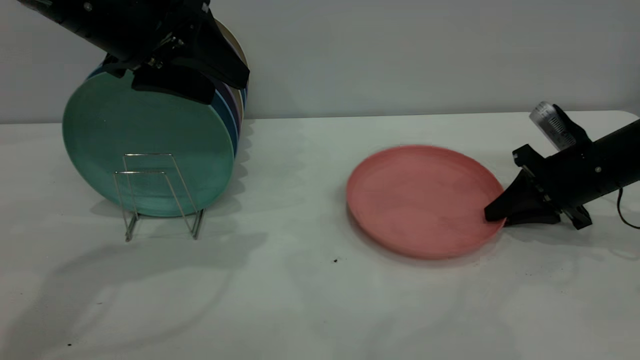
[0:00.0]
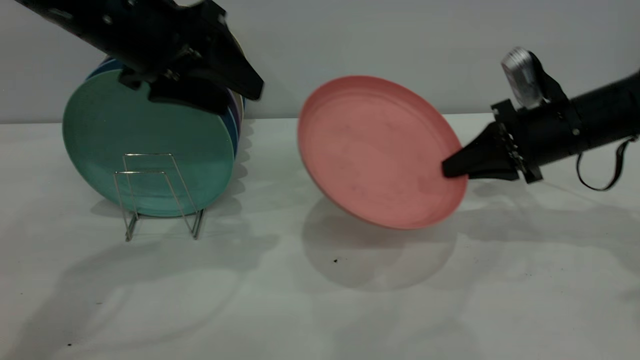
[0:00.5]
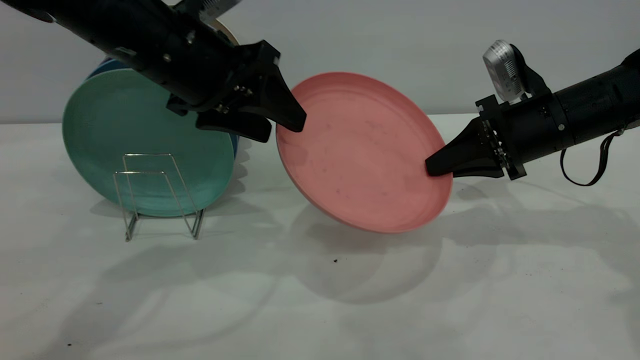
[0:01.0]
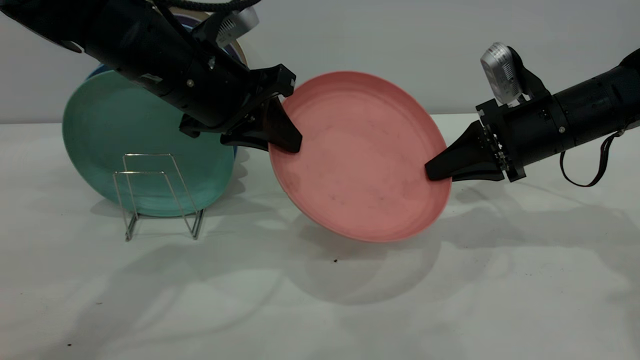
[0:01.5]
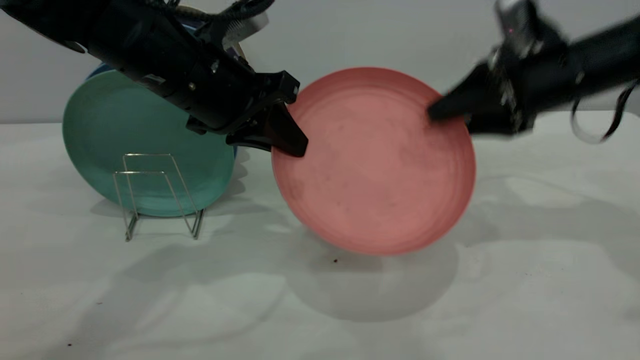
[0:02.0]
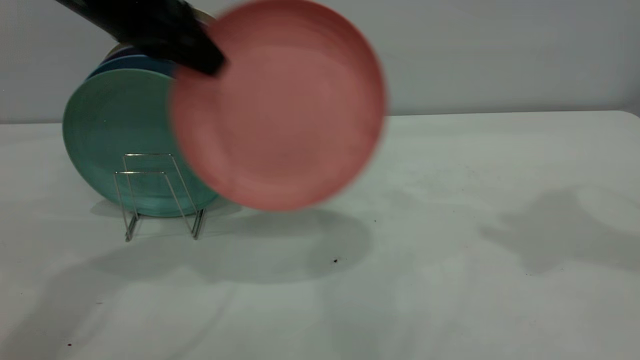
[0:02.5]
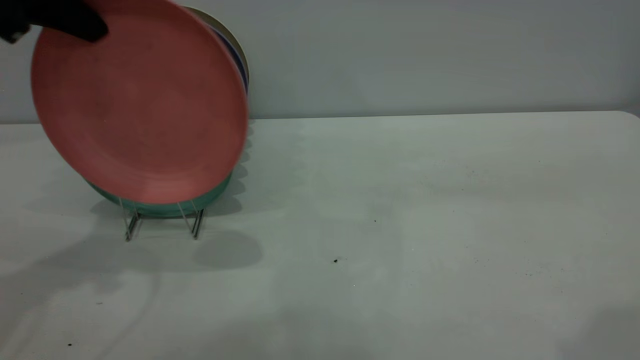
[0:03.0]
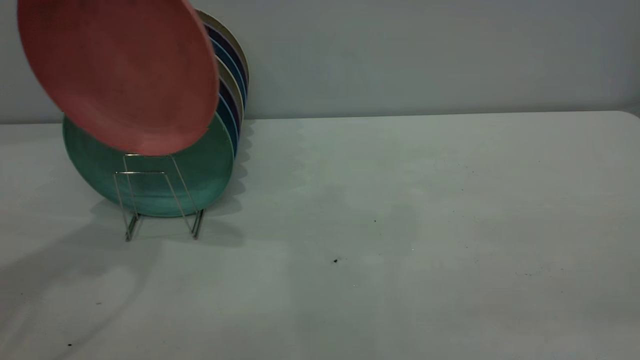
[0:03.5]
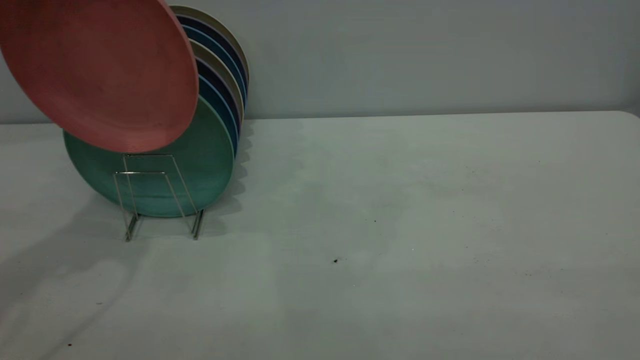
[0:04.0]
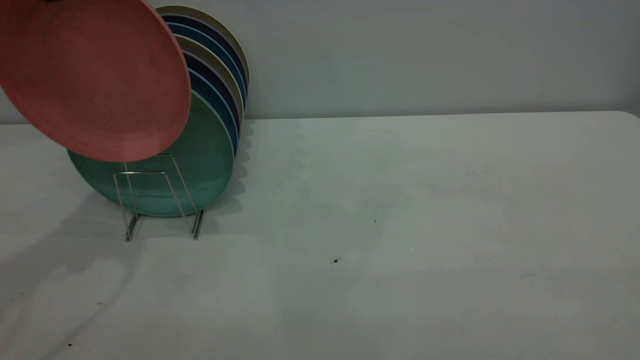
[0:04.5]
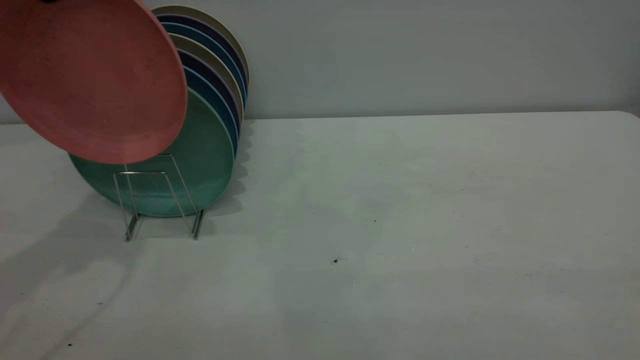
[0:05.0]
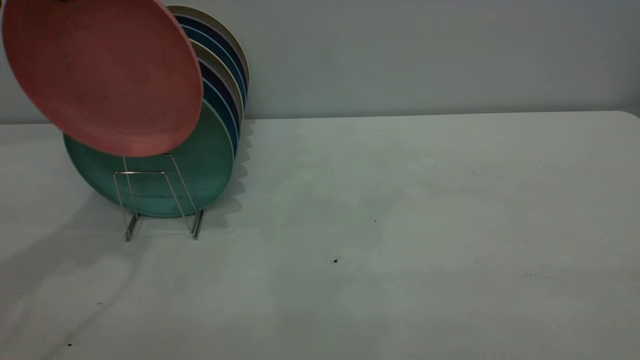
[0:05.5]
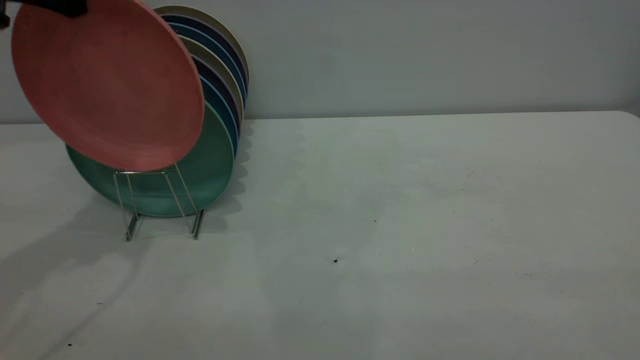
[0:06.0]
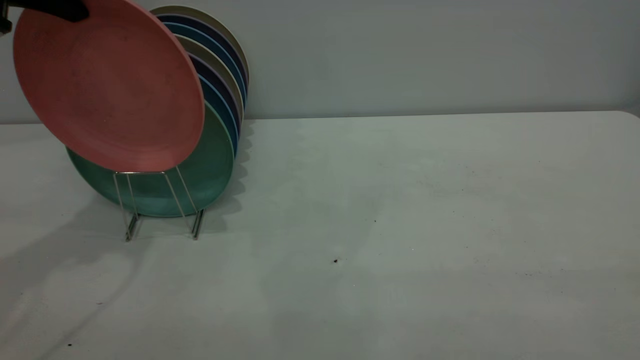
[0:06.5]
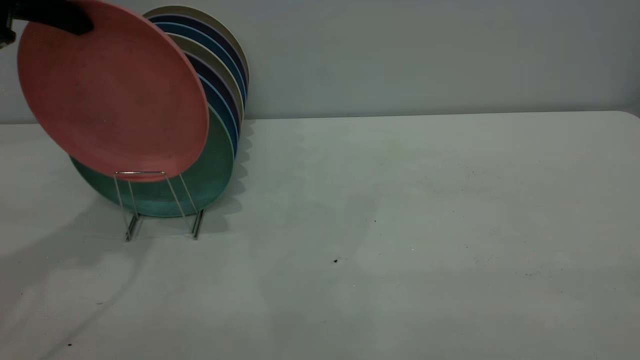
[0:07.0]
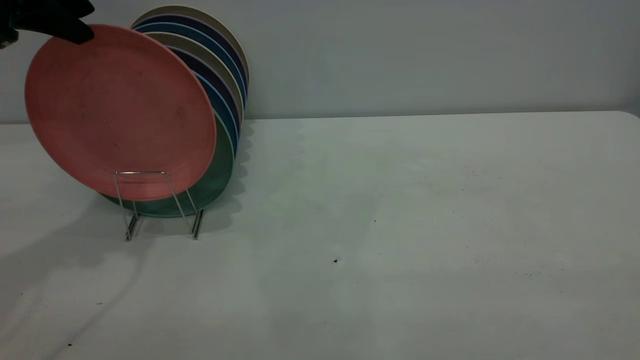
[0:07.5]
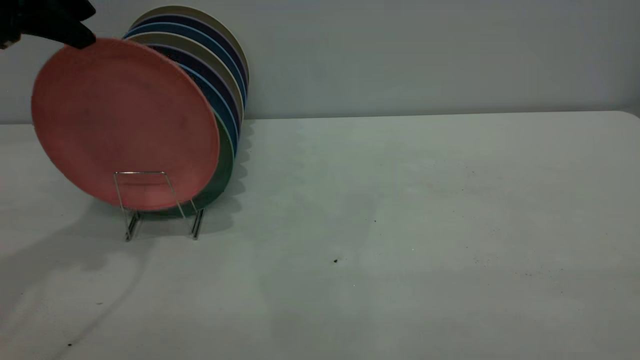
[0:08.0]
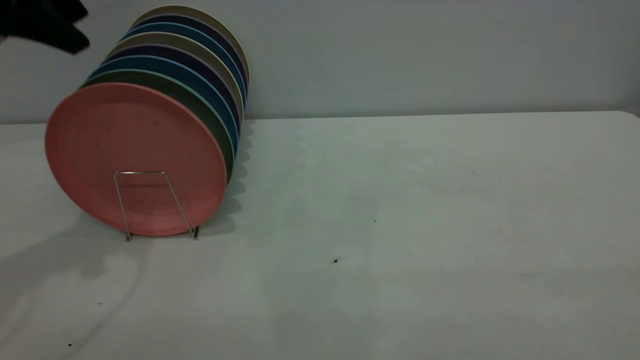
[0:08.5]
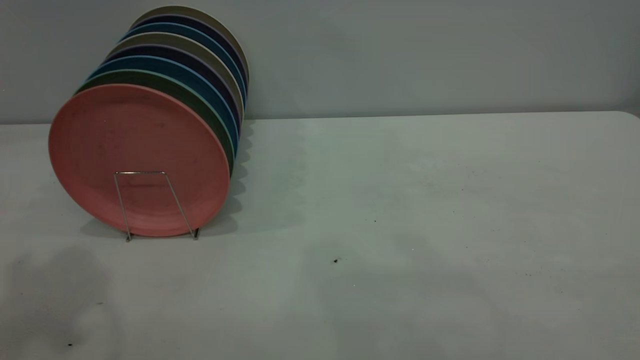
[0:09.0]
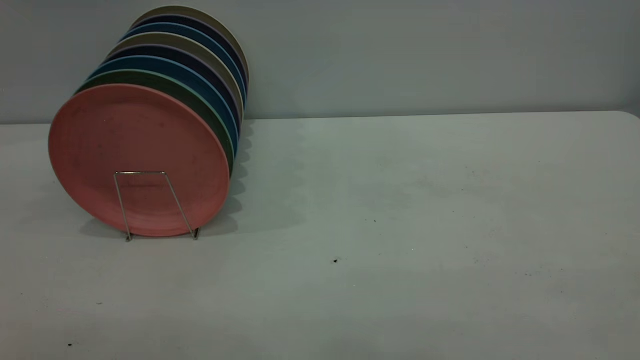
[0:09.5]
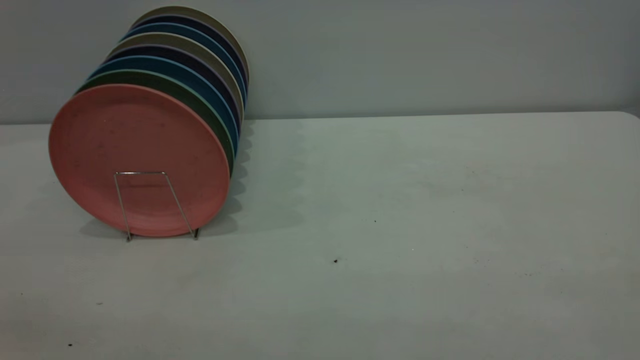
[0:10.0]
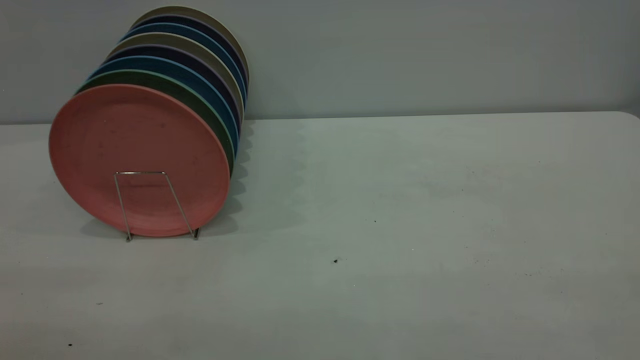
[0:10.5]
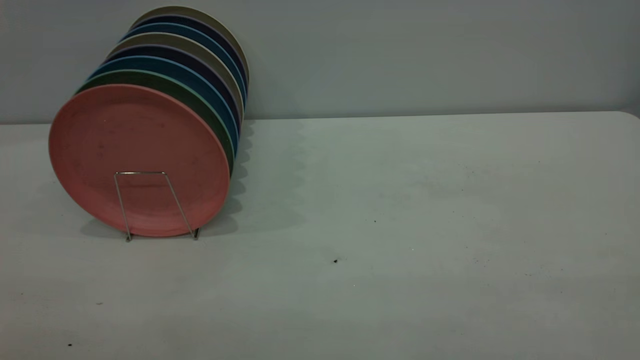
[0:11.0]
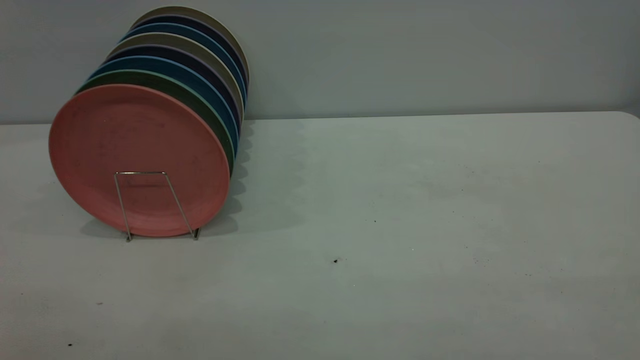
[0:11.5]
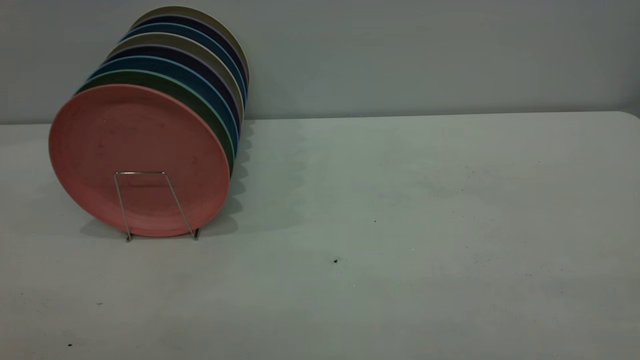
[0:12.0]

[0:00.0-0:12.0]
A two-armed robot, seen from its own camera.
Task of the whole recording: the right gripper grasp the pink plate, the right gripper pass the pink plate to the left gripper, and the left gripper place the pink plate on the plate rack.
Step, 0:00.5 to 0:02.0: Pass the plate from the right gripper to the left gripper.
Step, 0:02.5 to 0:08.5: Place the plate on the shelf.
0:00.0 to 0:02.0: The left gripper heads to the right and downward, covering approximately 10 cm, and closes, while the right gripper shifts approximately 15 cm upward, and opens.
0:02.0 to 0:04.0: The right gripper travels backward by some 40 cm. Meanwhile the left gripper shifts about 25 cm upward and to the left.
0:04.0 to 0:06.0: There are only small adjustments of the grippers.
0:06.0 to 0:08.0: The left gripper opens.
0:08.0 to 0:10.0: The left gripper heads backward, covering approximately 35 cm.
